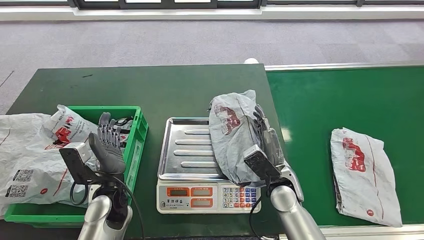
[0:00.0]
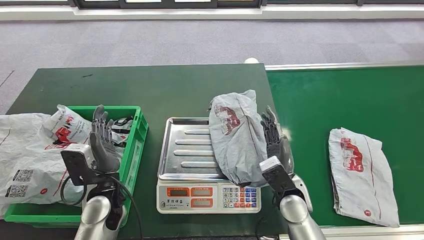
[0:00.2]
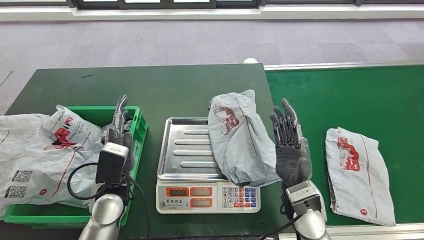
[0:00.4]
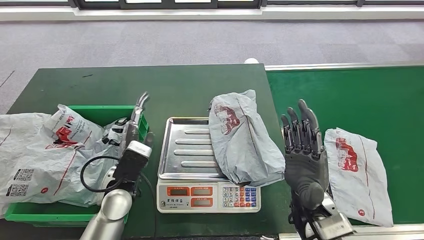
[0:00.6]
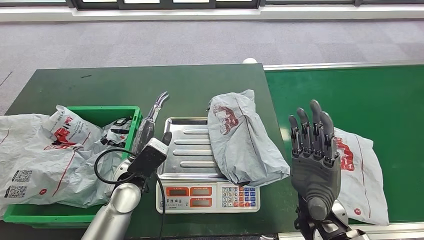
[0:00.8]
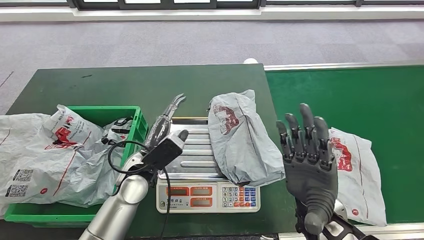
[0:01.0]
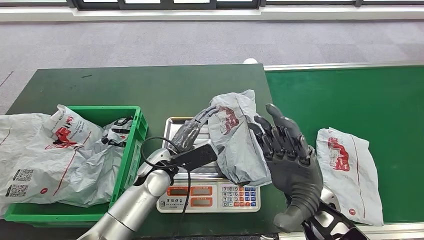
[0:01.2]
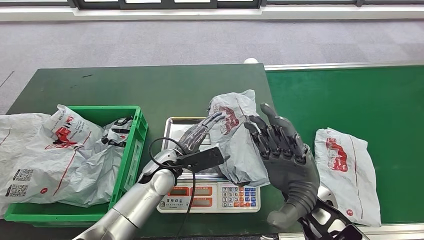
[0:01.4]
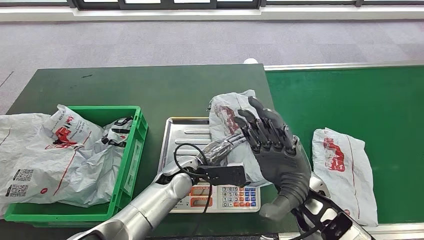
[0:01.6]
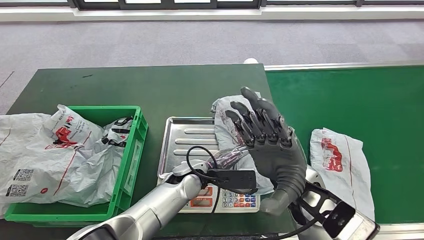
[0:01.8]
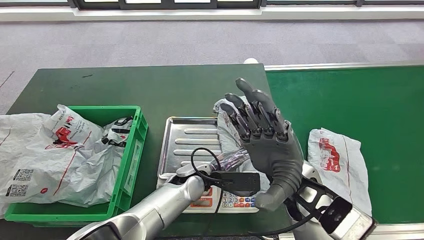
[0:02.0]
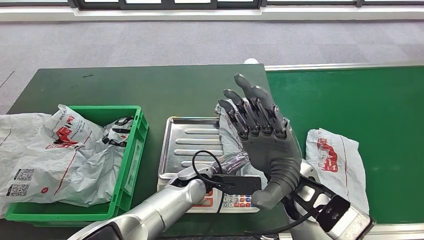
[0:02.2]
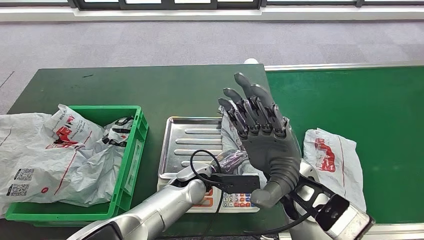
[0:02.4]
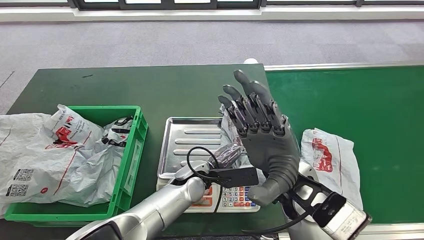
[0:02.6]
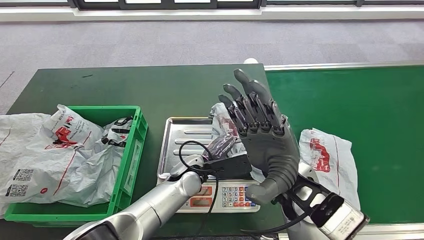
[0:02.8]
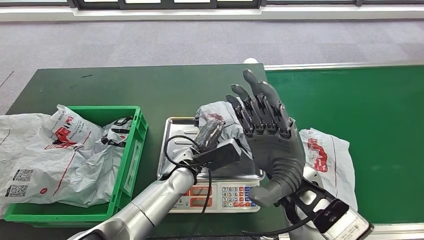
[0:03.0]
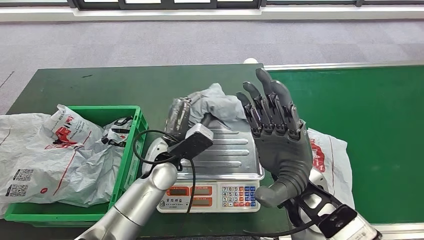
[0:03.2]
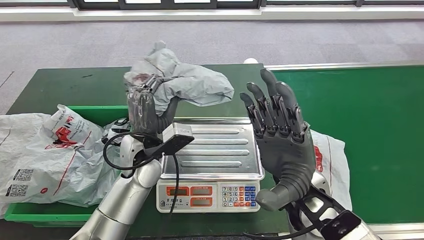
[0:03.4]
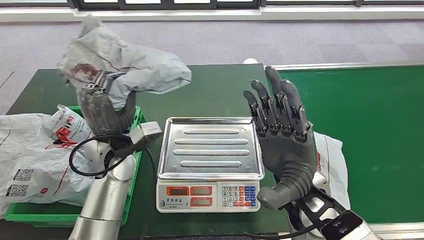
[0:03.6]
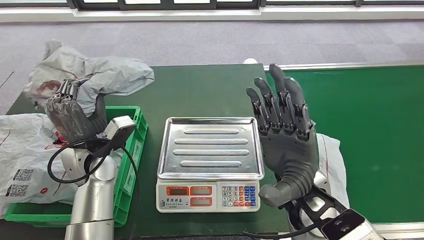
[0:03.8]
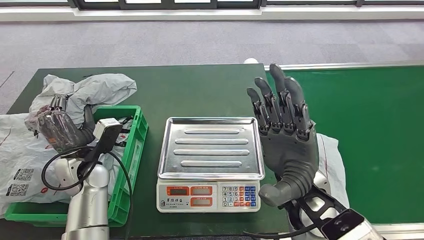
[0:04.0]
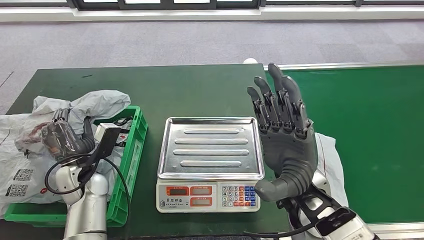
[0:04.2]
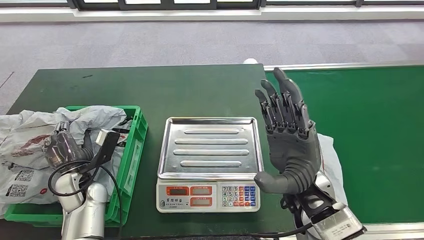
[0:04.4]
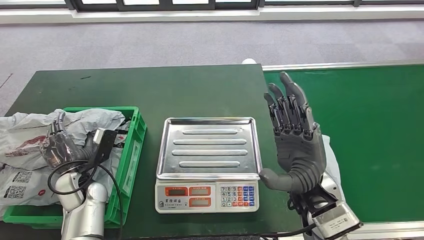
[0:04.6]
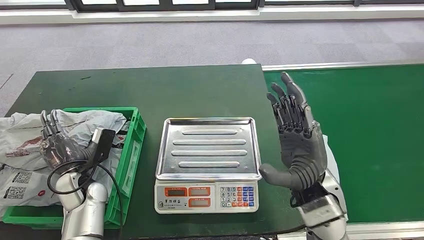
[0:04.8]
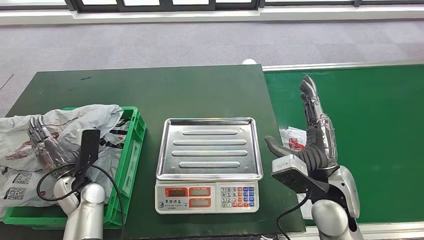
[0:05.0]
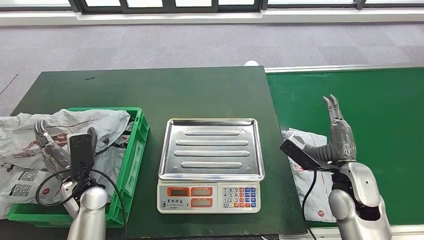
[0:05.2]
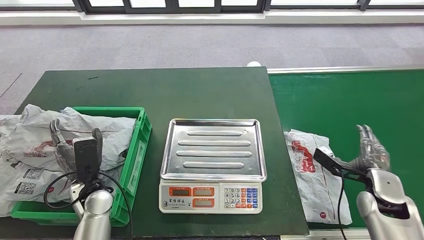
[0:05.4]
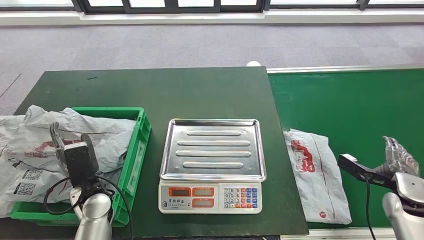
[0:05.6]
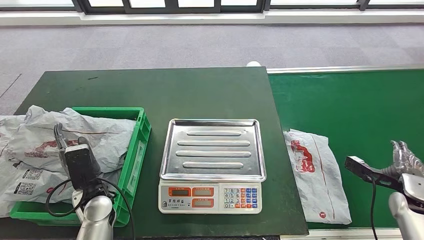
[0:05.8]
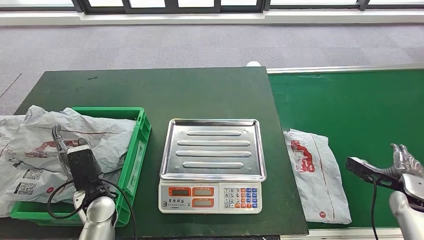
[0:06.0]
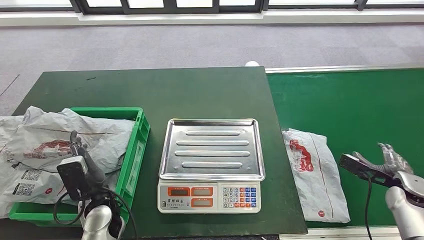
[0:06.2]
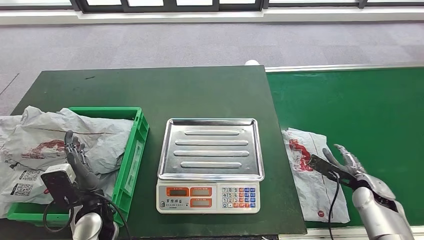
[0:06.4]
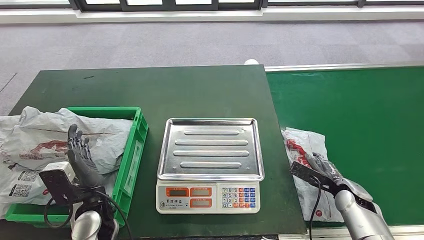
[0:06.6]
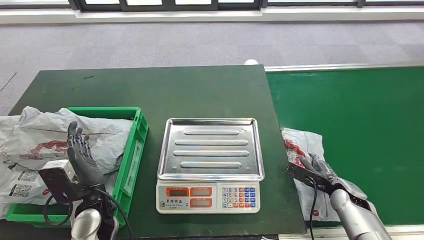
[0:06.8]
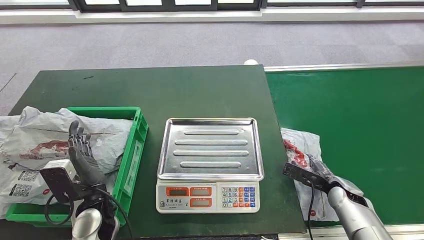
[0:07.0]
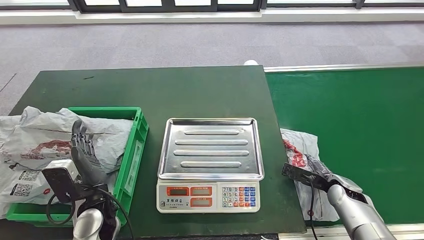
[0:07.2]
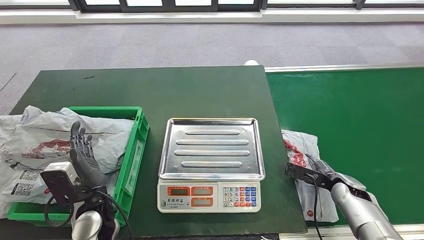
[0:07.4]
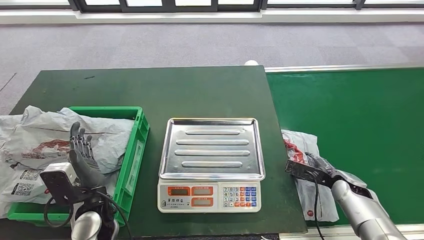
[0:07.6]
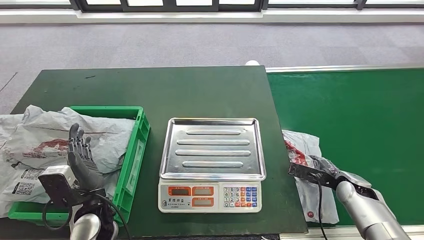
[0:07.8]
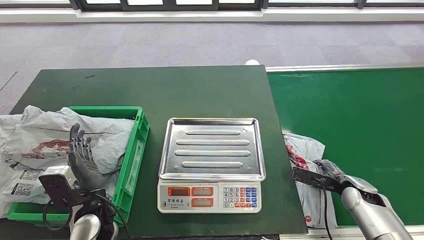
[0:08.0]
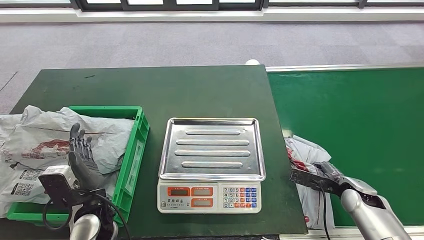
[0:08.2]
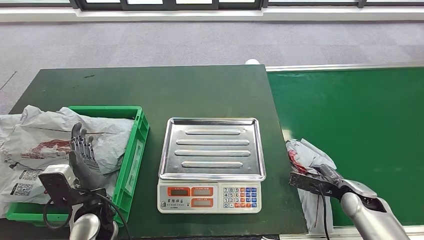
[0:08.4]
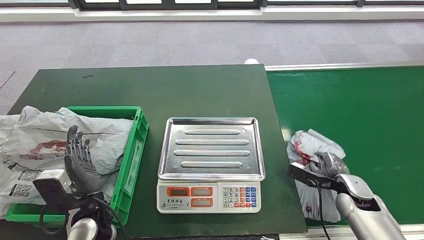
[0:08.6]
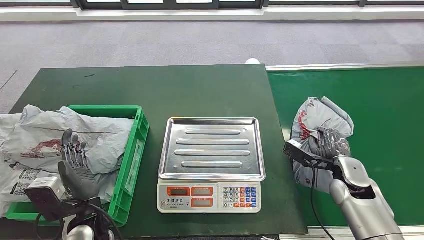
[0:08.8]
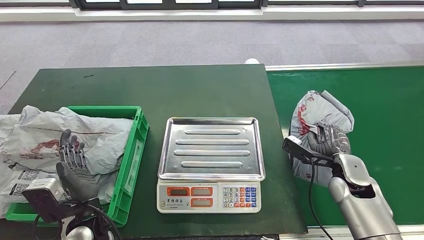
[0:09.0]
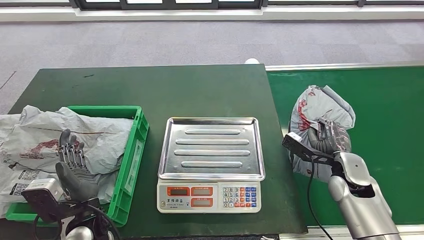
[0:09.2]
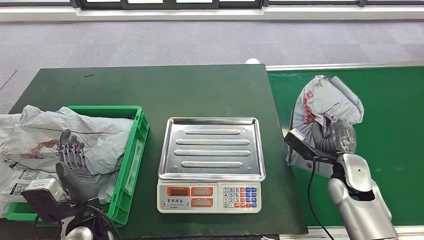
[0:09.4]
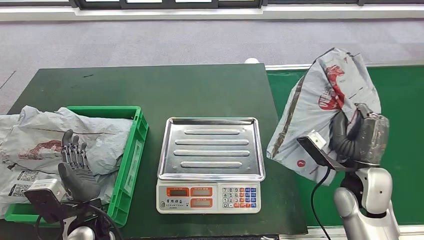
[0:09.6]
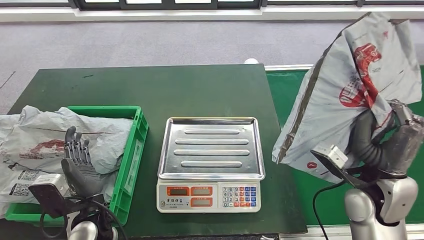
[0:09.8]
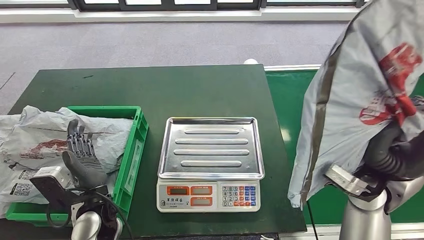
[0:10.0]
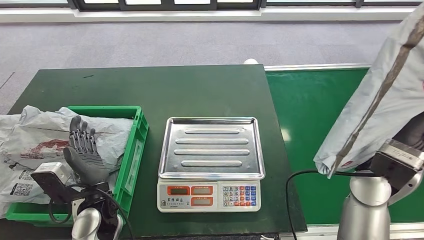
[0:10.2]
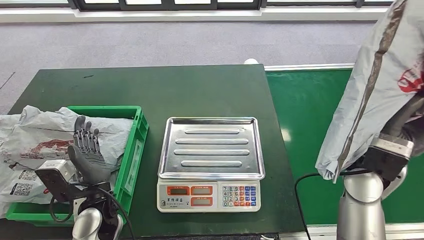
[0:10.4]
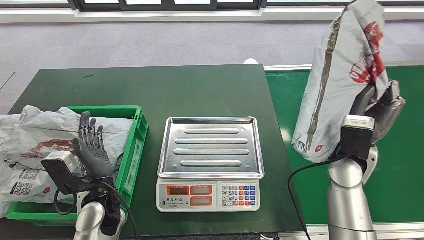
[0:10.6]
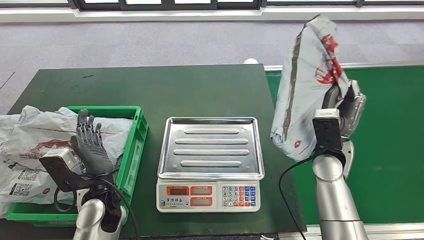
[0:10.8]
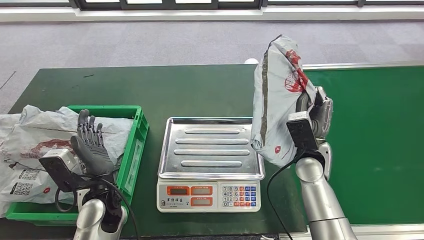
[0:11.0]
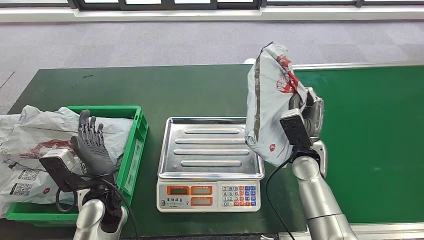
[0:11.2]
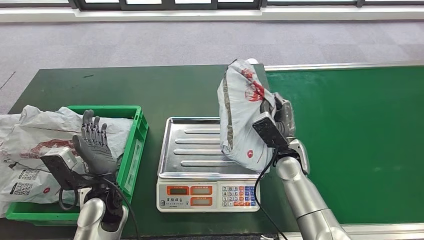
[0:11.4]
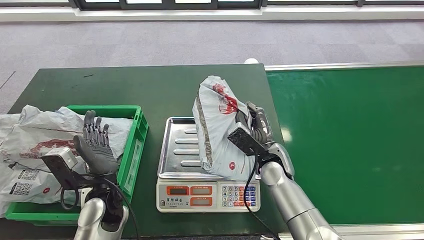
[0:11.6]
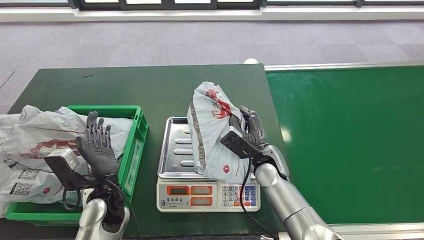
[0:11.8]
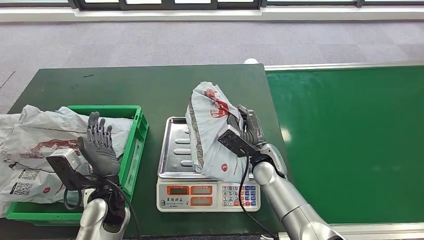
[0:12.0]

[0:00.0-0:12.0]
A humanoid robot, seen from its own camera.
Step, 0:00.4 to 0:03.2: Pick up the parcel from the inbound machine.
Step, 0:03.6 to 0:05.4: Place the parcel into the delivery box.
Step, 0:05.6 to 0:10.0: Pick up the parcel from the conveyor belt.

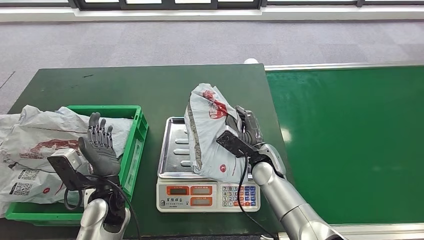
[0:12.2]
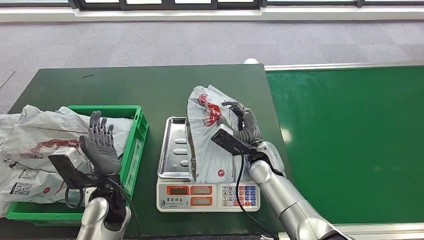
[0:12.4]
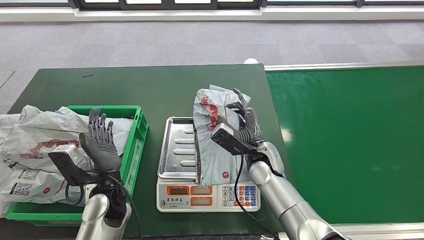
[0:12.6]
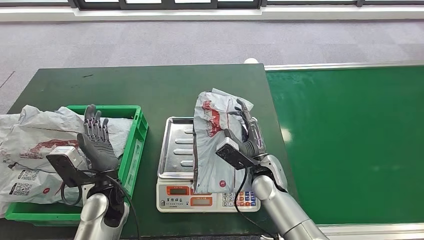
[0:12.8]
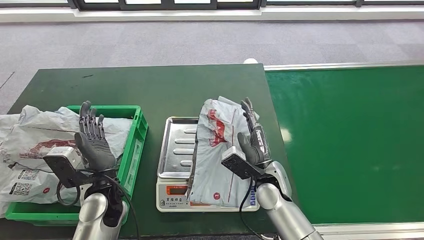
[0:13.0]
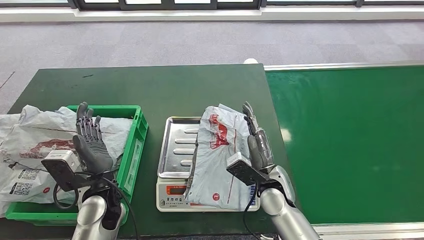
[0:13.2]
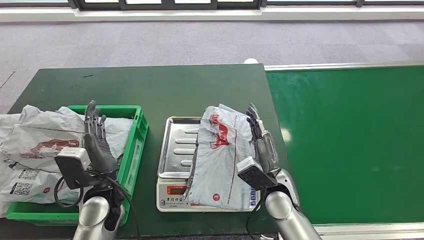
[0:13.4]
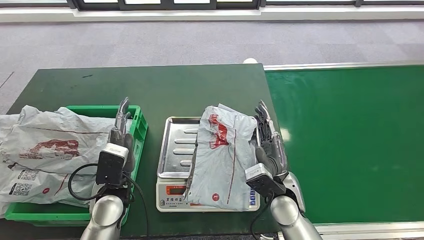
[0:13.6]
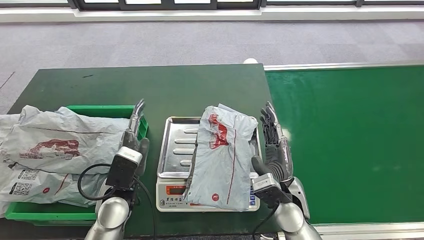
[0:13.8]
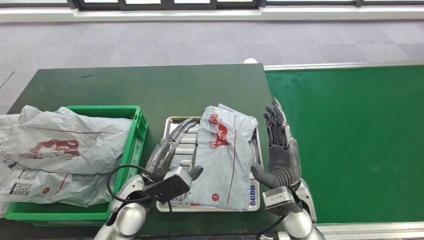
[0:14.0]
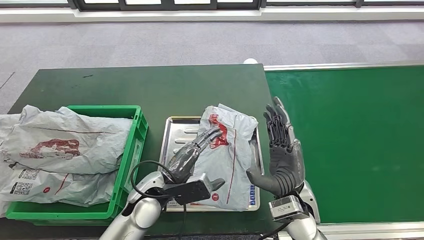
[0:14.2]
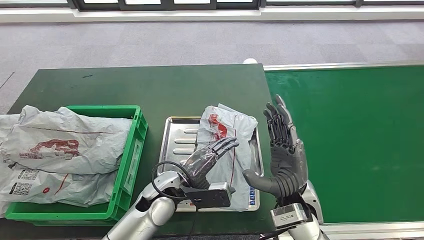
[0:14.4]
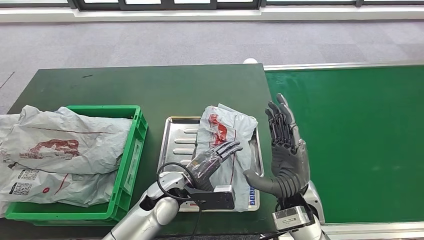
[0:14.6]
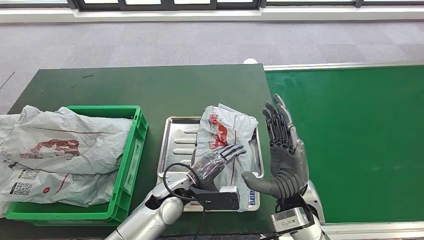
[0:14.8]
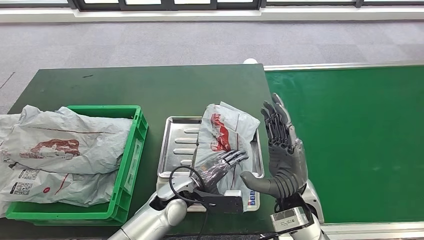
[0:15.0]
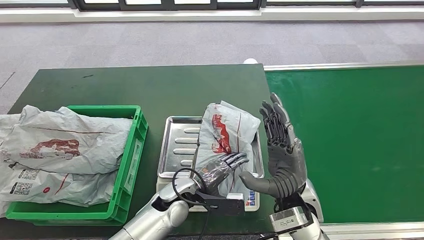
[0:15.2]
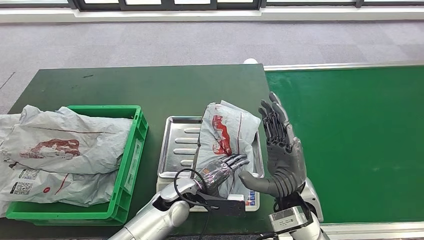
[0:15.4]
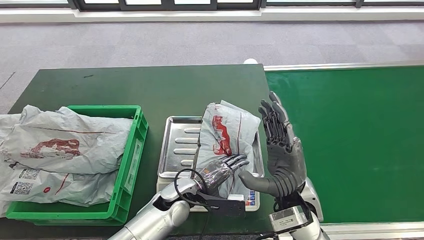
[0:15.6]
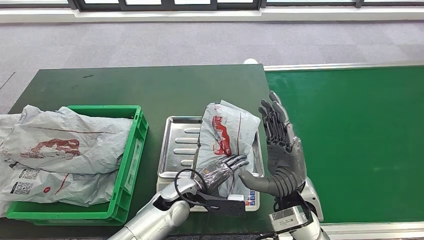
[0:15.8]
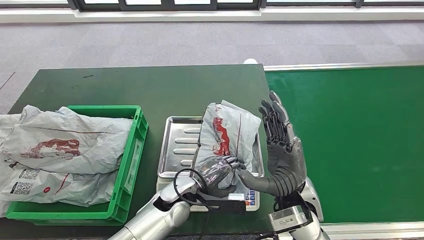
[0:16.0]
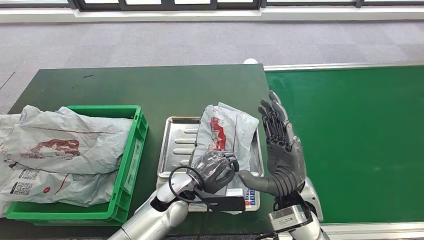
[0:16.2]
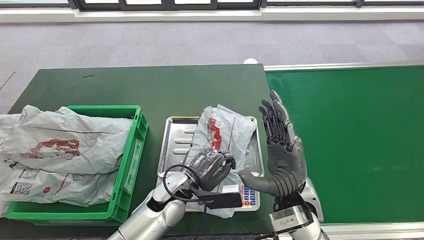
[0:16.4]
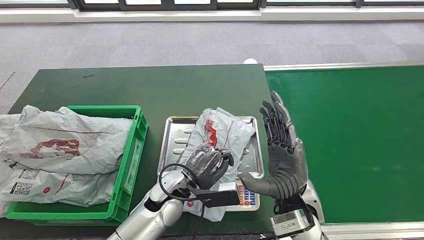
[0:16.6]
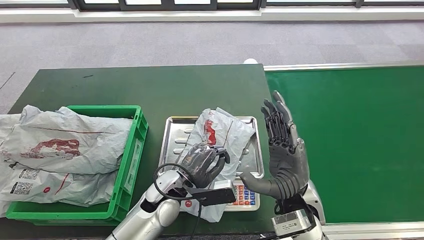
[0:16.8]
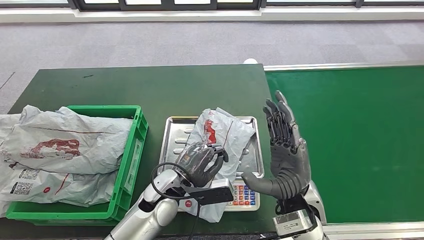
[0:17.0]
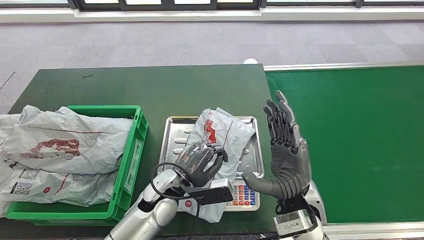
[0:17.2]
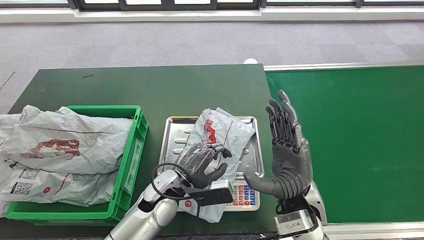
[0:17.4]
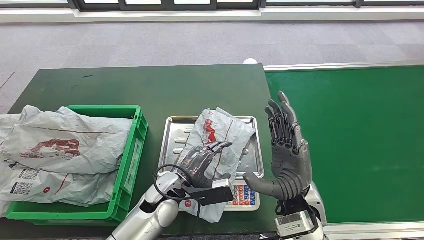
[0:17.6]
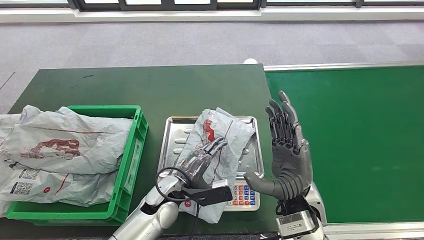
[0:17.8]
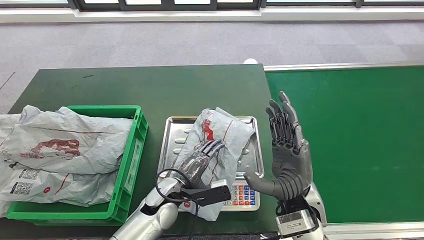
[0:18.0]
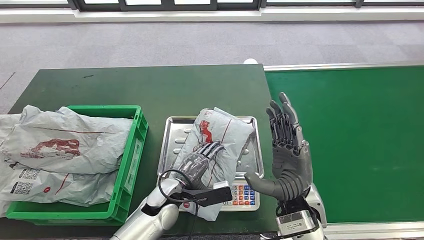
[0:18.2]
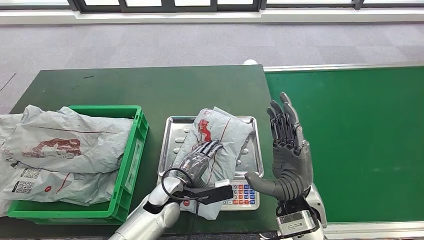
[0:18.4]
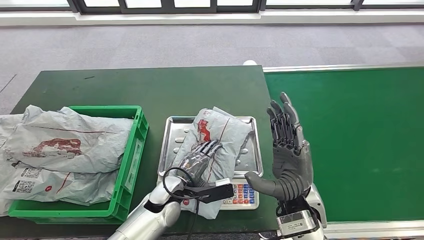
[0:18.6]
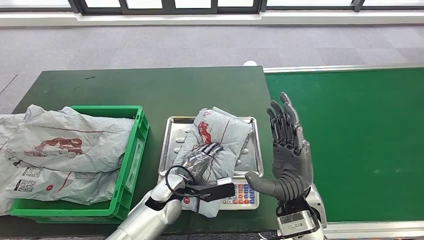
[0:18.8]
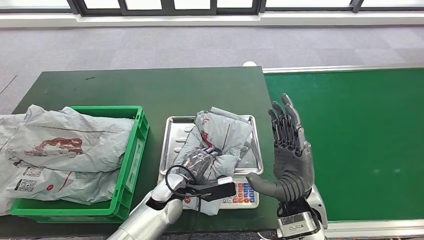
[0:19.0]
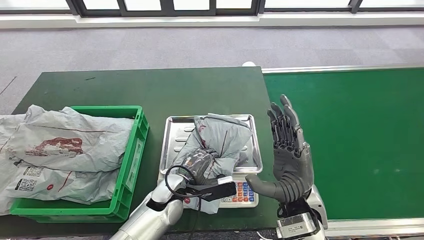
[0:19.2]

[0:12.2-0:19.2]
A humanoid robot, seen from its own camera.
0:12.2 to 0:13.6: The right hand moves backward, approximately 10 cm.
0:13.6 to 0:15.0: The left hand heads to the right and downward, covering about 15 cm, while the right hand is displaced upward by roughly 5 cm.
0:15.0 to 0:17.8: The hands stay close to where they were, moving slightly.
